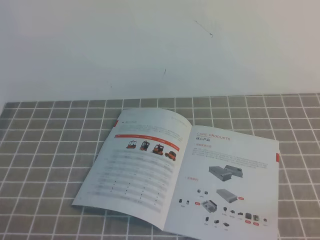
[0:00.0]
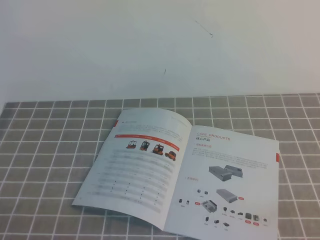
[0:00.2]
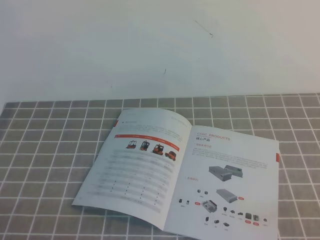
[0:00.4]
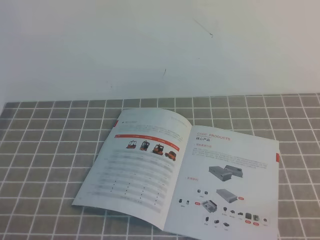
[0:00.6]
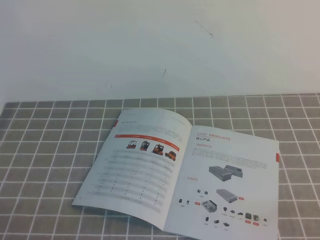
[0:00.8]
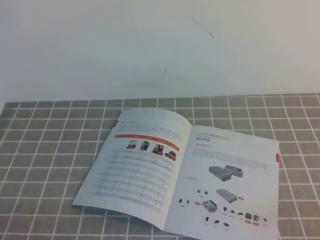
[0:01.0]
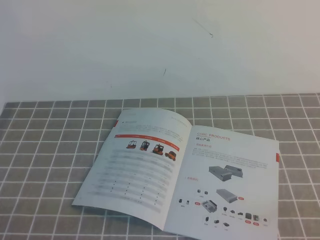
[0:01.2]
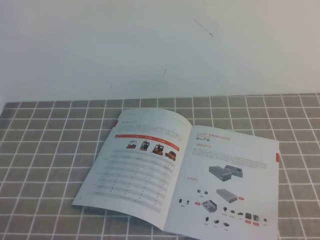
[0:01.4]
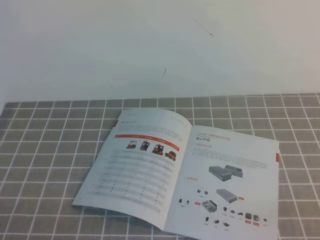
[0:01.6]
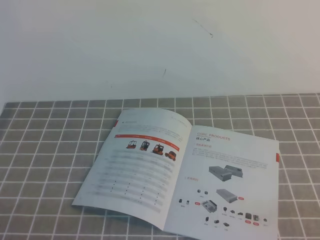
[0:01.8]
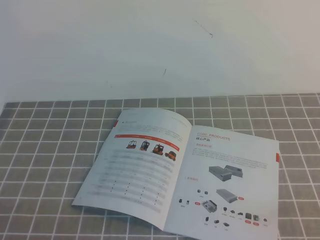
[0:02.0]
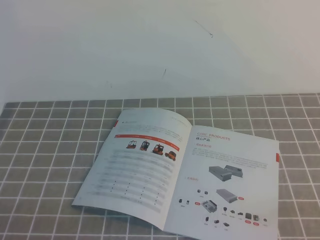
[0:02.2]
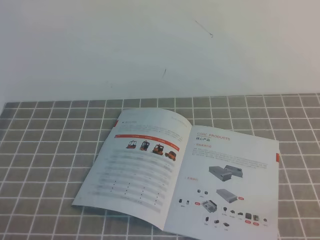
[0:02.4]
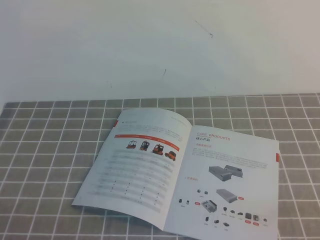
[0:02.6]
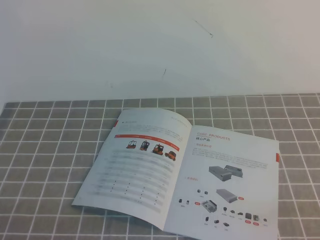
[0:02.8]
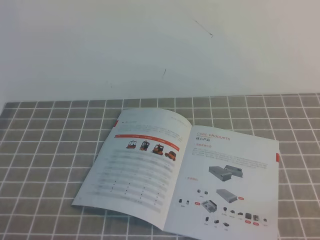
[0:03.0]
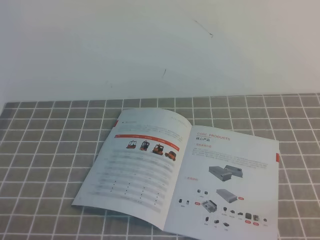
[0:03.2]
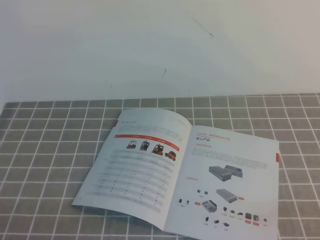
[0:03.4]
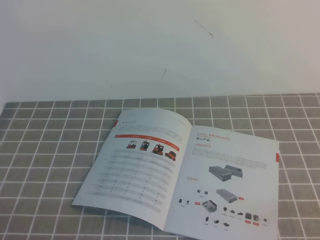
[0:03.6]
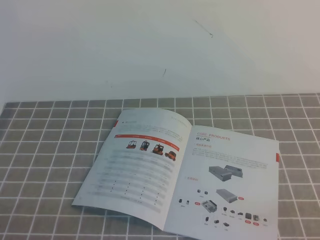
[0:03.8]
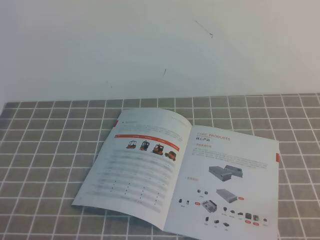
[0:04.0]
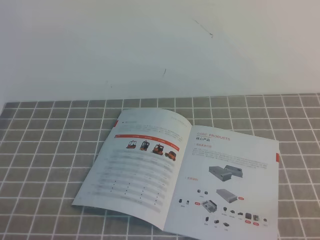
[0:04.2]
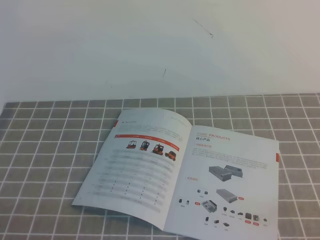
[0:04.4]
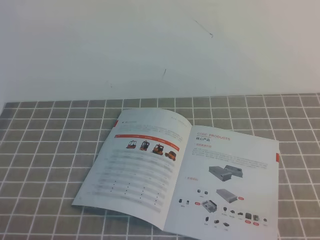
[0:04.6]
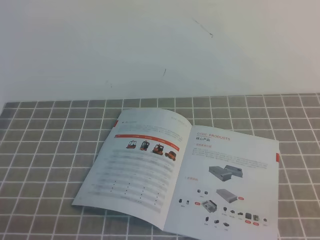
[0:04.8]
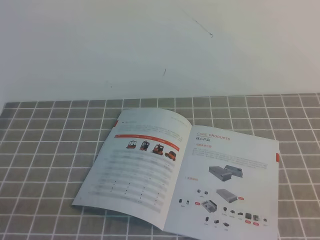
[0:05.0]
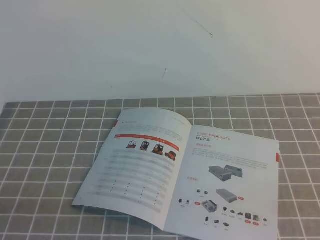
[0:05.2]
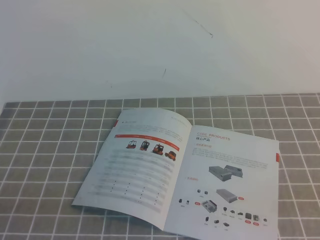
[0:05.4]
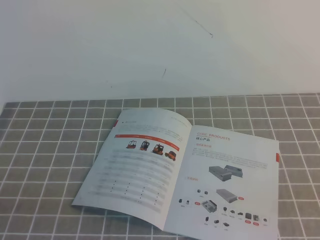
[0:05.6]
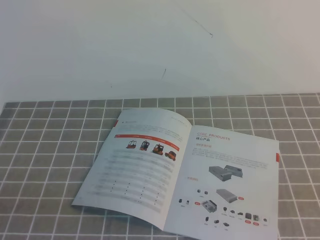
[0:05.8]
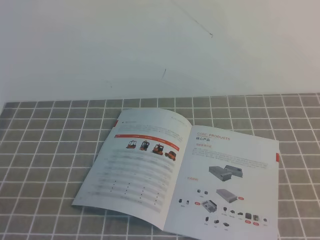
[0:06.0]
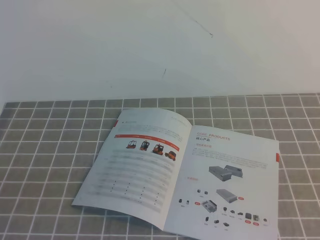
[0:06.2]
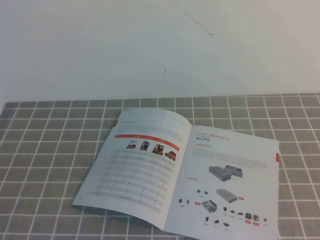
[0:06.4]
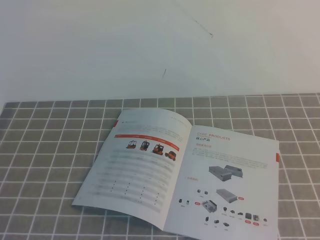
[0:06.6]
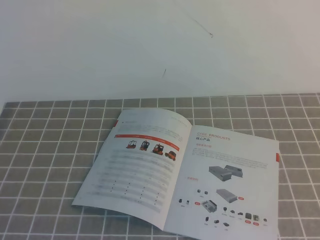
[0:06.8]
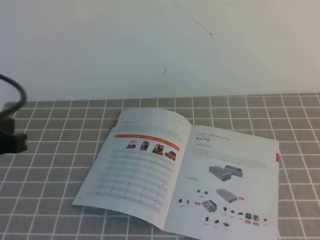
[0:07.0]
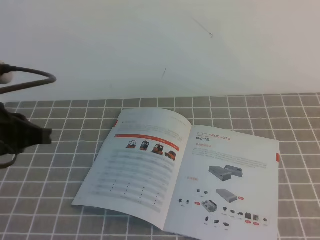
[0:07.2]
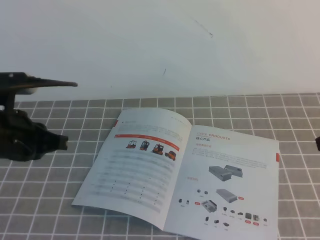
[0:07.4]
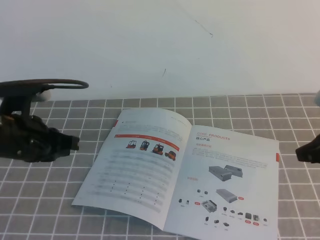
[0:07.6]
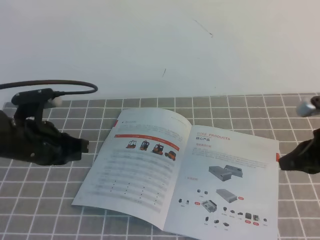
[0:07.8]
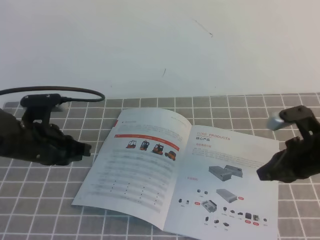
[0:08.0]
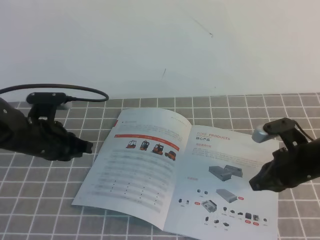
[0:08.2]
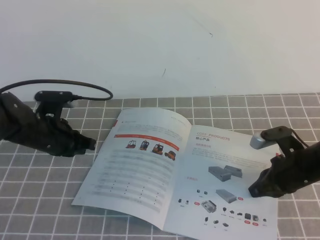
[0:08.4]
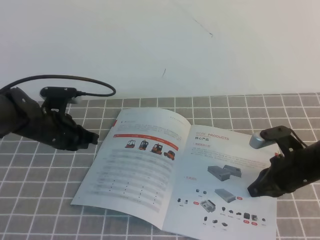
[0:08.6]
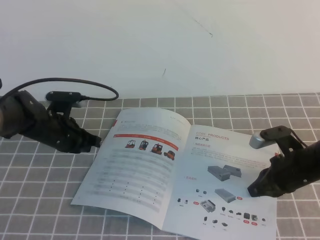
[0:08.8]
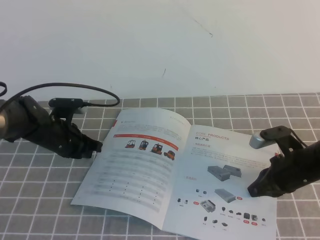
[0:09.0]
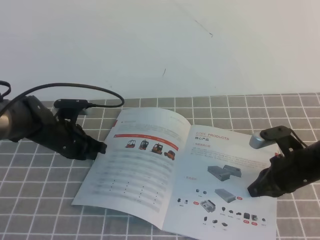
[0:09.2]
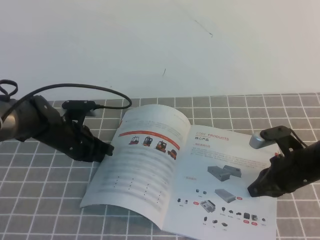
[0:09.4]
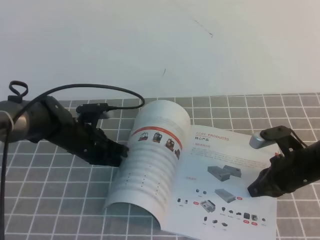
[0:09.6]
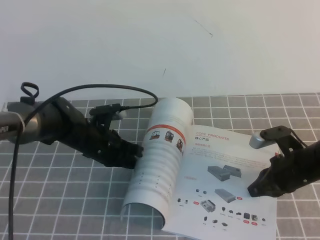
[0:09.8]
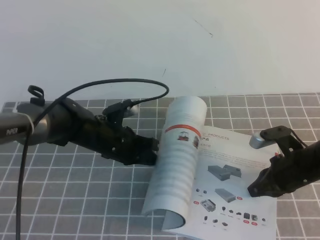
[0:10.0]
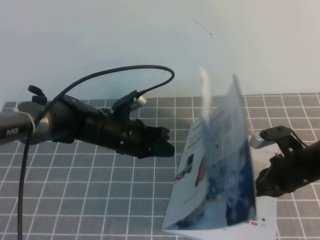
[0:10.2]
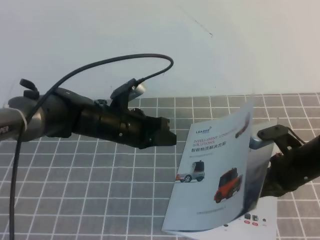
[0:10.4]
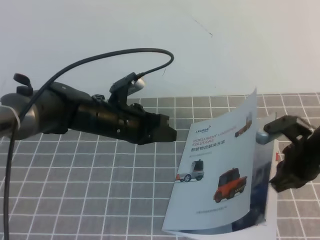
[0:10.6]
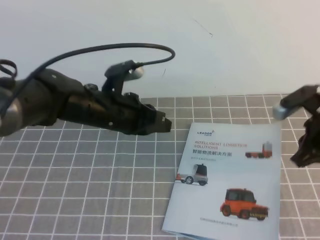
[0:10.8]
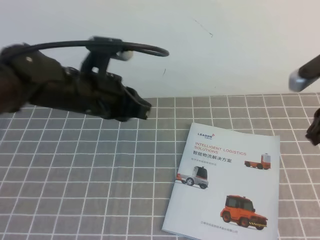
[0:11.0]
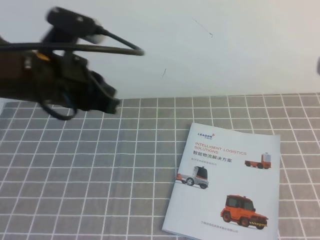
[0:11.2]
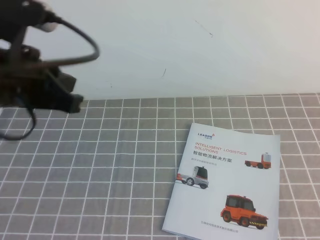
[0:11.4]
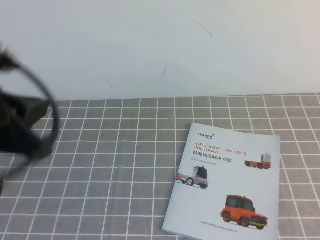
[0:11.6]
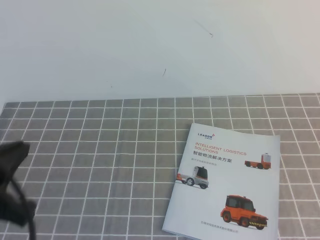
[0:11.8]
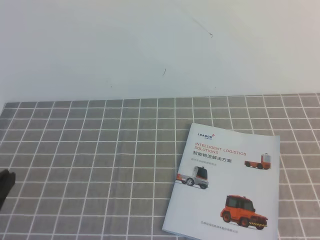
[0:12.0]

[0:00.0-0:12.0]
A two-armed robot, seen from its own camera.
Task of the whole recording: on the grey tablecloth, hold the book with one hand and close it with the other.
0:00.0 to 0:04.4: Both grippers stay put.
0:06.0 to 0:07.6: The grippers both shift forward by approximately 25 cm.
0:07.6 to 0:09.0: The right gripper heads downward and to the left, covering approximately 15 cm; the left gripper shifts roughly 15 cm forward and downward.
0:09.0 to 0:10.4: The left gripper is displaced to the right by about 10 cm.
0:10.4 to 0:12.0: The left gripper is displaced backward and to the left by approximately 30 cm, while the right gripper is displaced backward and upward by roughly 30 cm.

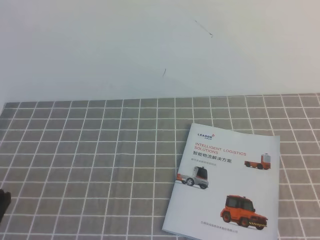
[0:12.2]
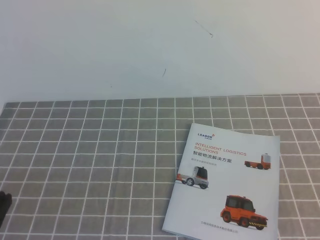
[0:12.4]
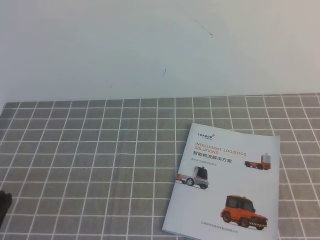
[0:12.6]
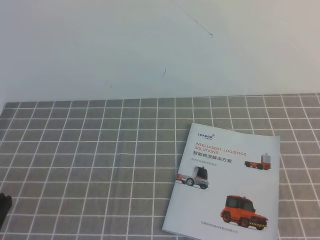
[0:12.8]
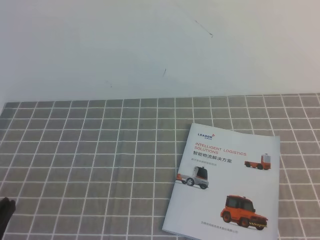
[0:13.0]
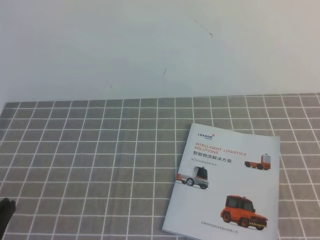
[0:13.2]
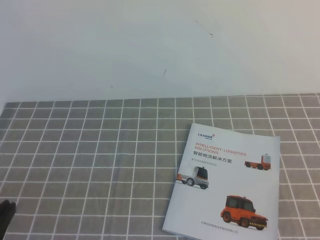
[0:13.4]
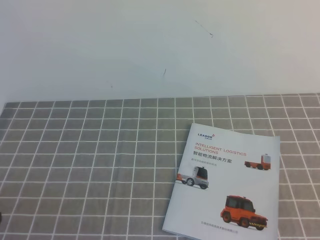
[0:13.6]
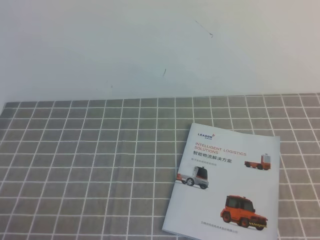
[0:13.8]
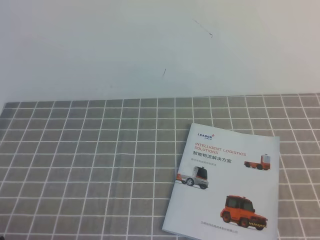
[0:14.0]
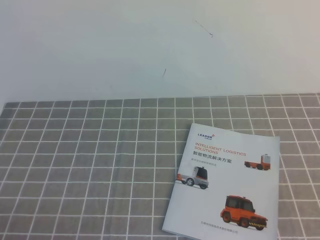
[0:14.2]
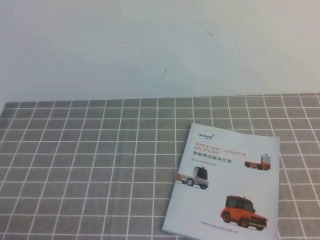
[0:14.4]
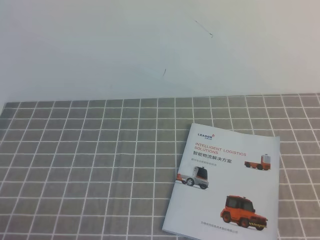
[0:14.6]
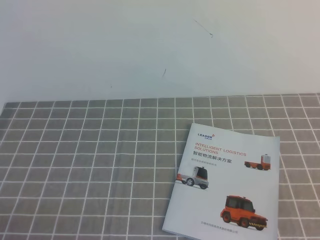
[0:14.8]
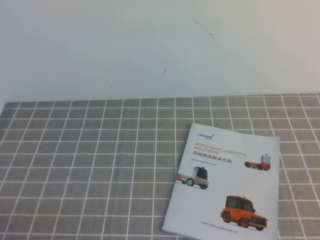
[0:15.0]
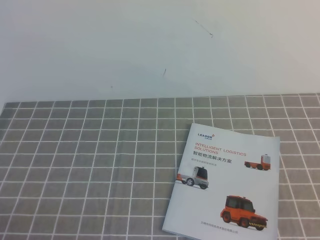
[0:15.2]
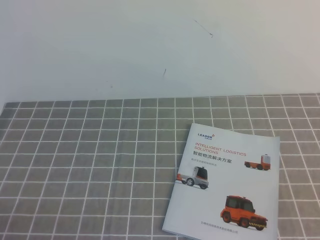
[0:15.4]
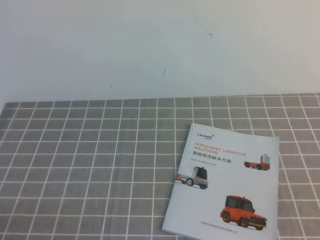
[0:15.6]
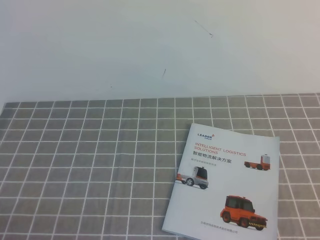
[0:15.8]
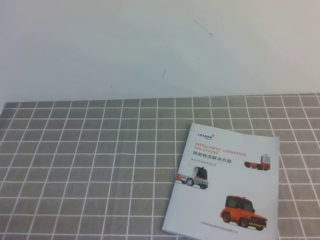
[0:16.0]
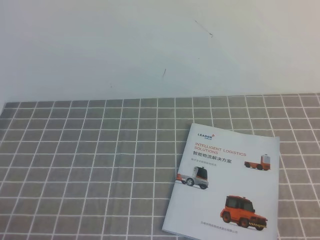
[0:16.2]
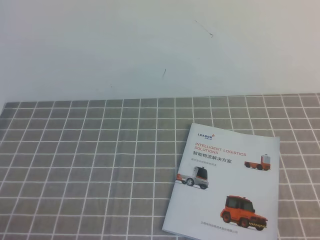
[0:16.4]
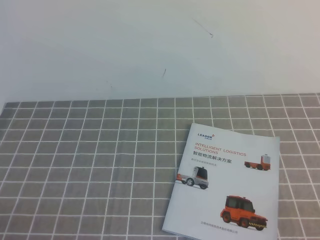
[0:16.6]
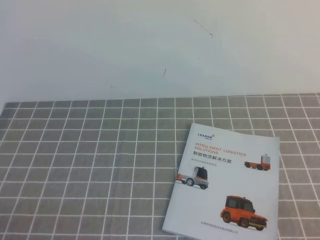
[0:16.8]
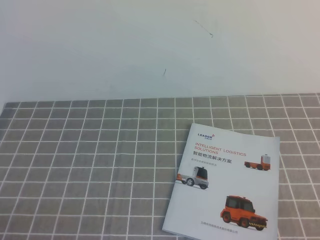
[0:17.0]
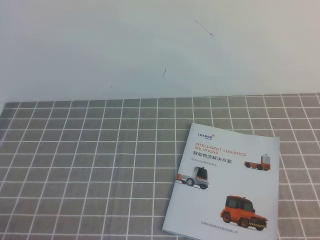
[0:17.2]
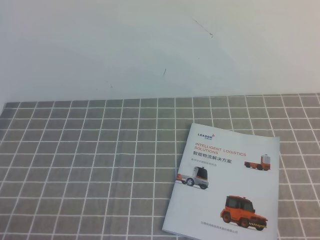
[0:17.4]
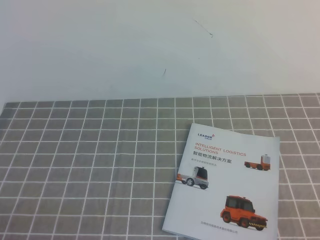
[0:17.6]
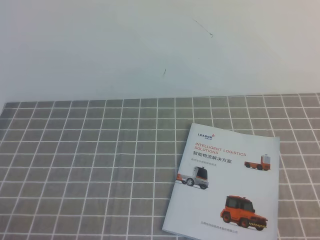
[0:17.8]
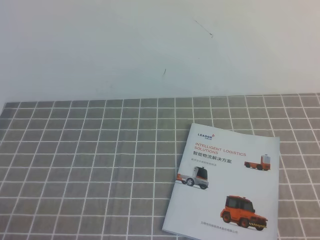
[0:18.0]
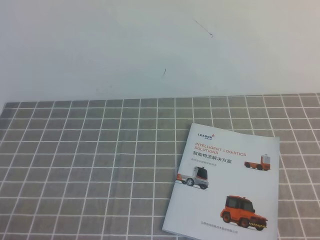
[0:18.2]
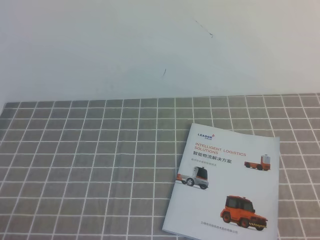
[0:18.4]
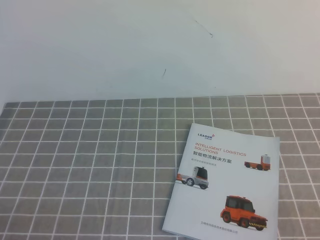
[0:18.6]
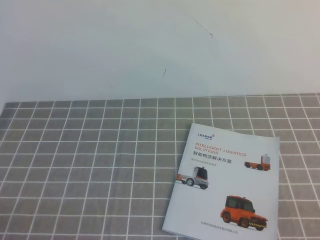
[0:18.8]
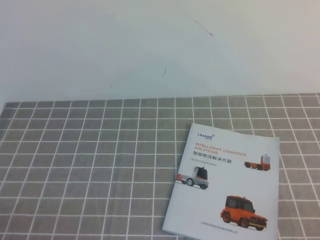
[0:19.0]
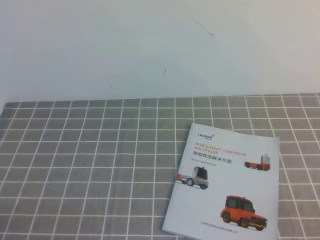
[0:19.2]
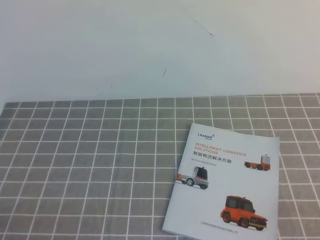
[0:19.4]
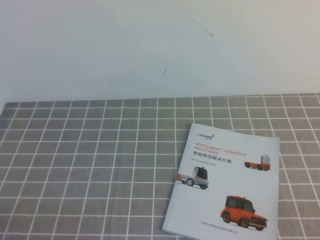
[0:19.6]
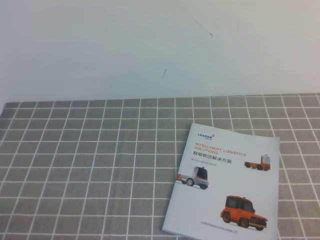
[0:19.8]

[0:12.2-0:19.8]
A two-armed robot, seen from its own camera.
Task of the whole recording: on the grey tablecloth, hold the book with one hand and close it with the other.
0:16.8 to 0:18.2: Neither gripper changes place.
